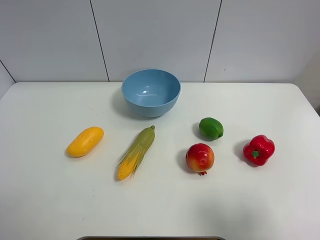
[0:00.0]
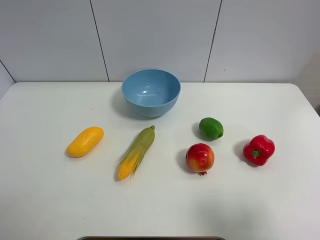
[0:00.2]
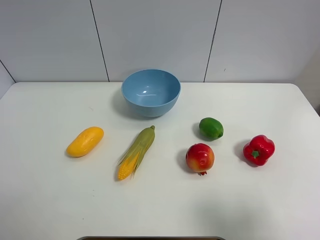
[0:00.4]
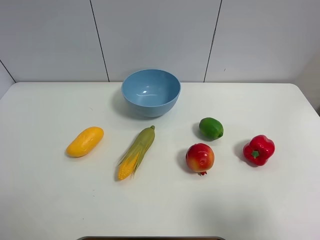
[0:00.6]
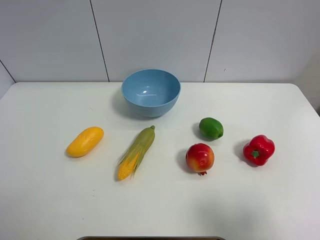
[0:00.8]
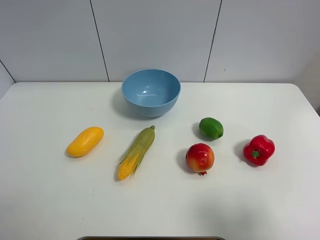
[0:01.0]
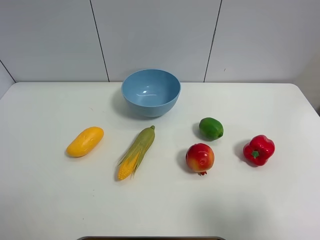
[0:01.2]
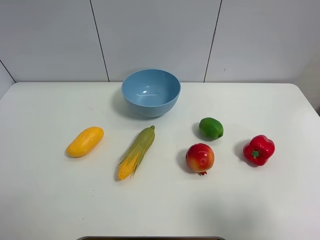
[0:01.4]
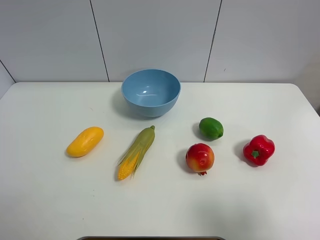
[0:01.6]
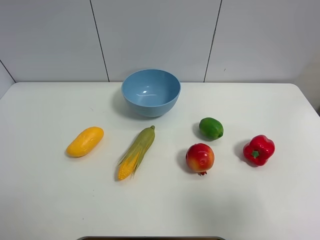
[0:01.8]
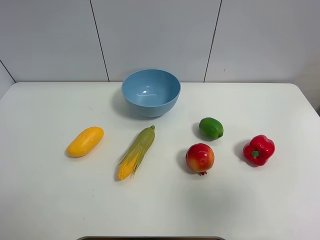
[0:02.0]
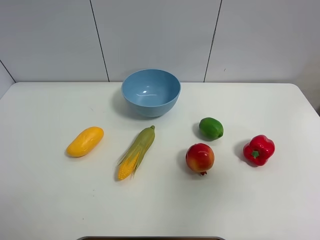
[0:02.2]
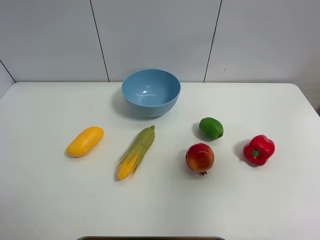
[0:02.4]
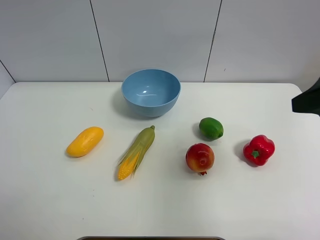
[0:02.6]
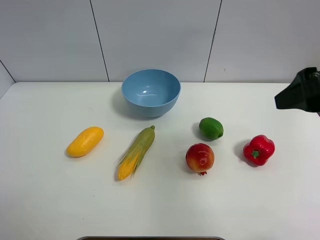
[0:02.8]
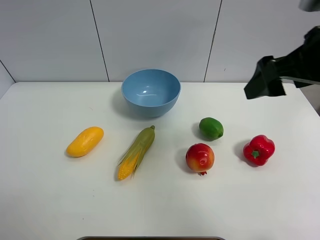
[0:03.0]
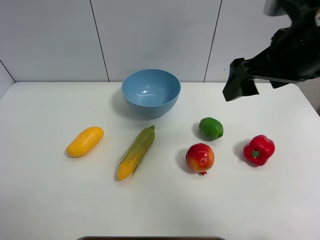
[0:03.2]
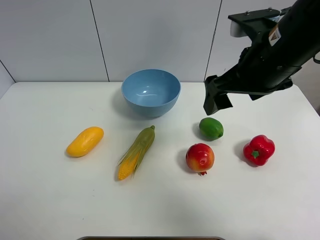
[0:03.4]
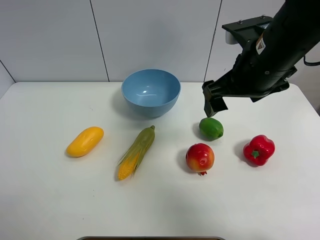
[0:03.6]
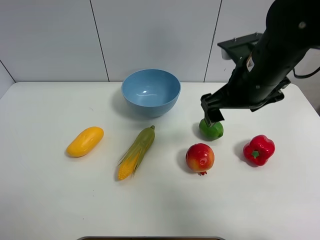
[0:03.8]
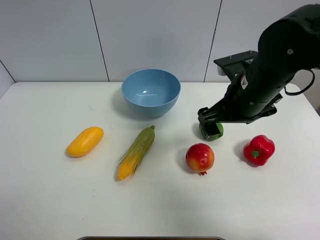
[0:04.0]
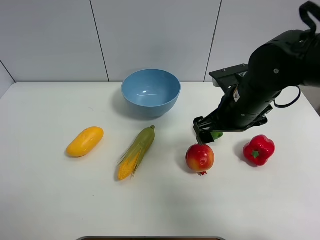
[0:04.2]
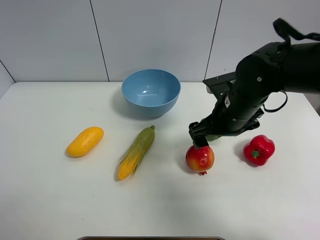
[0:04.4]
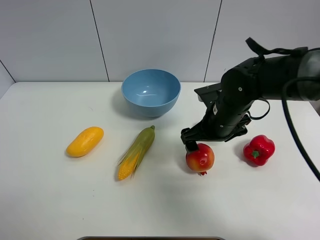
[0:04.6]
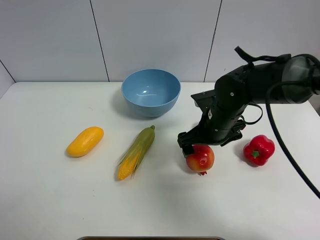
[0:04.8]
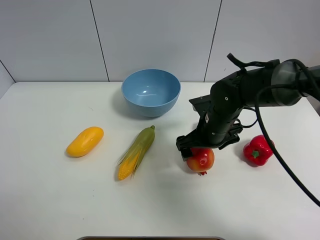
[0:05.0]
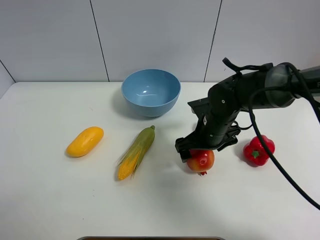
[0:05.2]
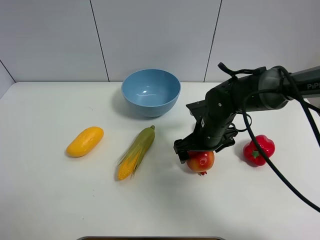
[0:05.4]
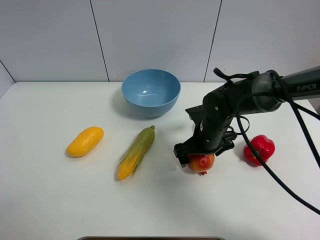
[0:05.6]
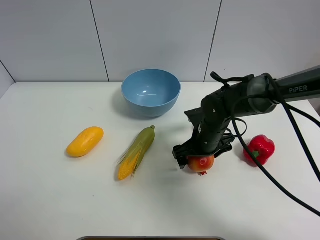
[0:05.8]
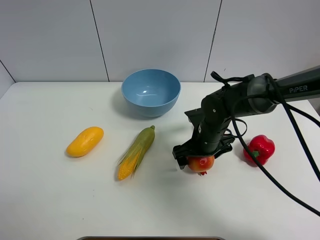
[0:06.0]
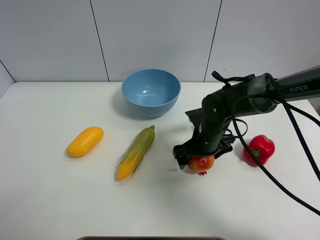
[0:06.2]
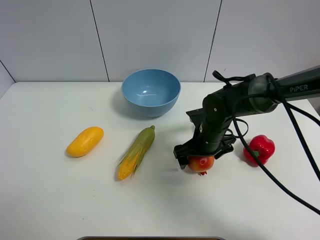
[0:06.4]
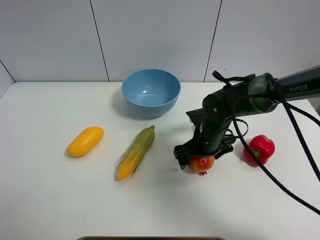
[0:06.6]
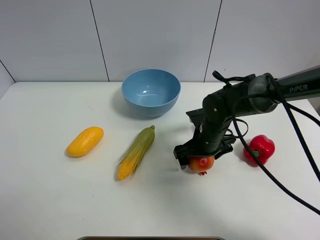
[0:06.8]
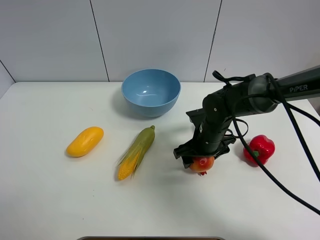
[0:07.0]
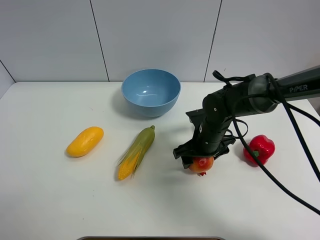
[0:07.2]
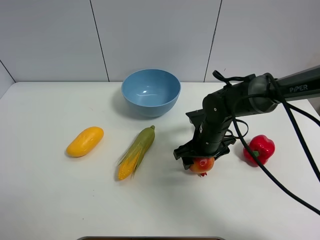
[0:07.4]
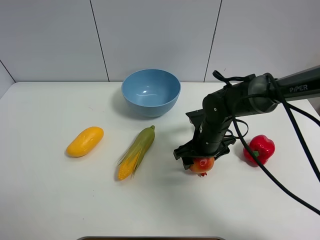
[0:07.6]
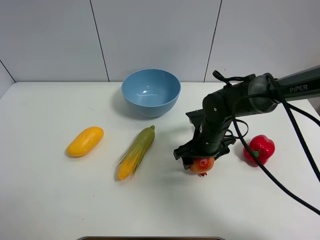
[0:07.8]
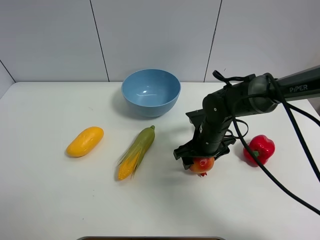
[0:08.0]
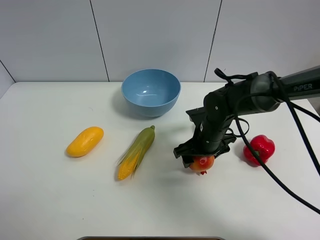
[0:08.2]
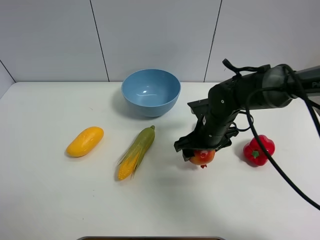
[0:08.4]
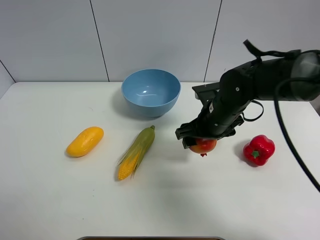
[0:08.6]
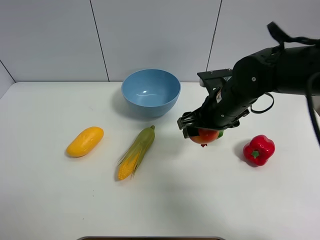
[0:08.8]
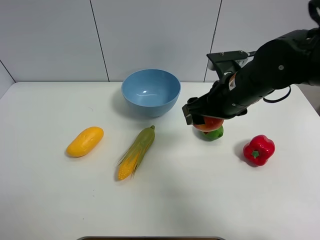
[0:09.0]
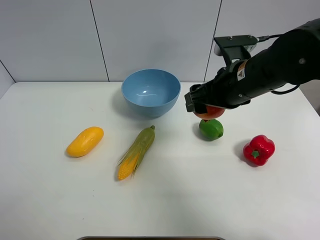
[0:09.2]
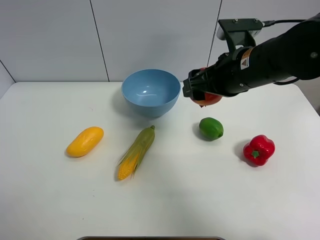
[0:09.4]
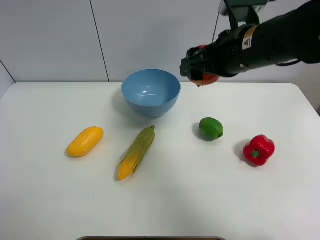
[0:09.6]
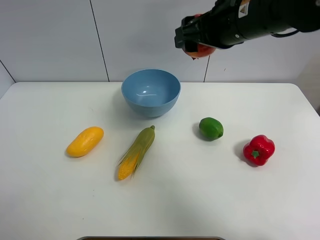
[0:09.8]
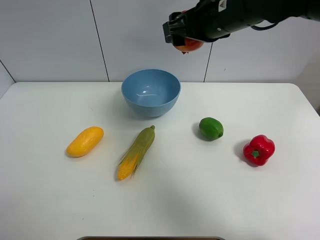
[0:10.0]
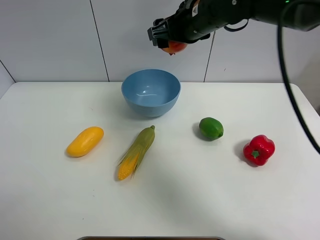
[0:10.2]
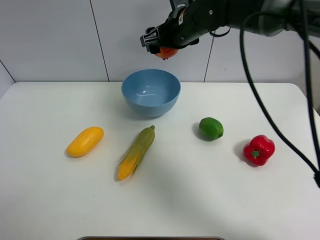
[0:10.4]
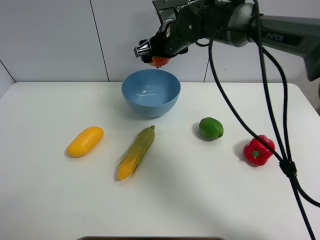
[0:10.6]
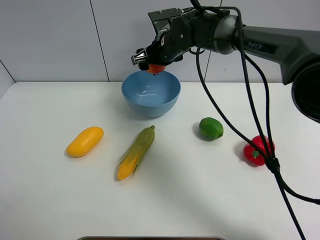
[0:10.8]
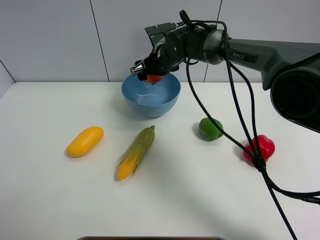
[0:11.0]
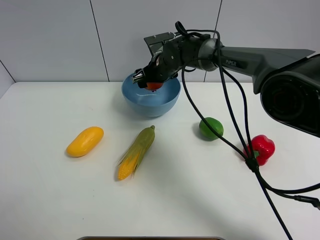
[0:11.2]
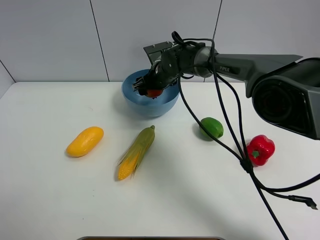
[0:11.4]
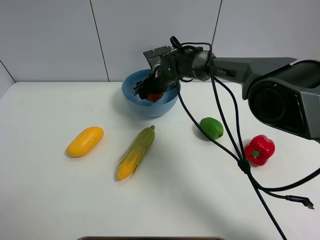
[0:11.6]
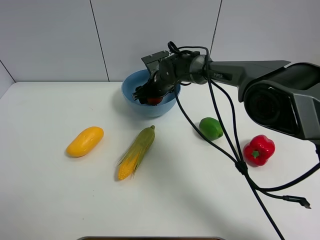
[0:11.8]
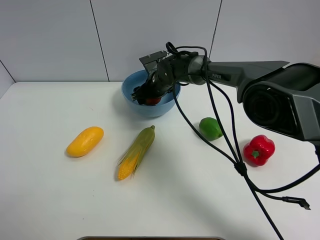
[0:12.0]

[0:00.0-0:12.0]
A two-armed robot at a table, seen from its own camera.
Task of the whole recording: Put the three fruits on the table into a bowl.
Step, 0:00.0 to 0:07.0: Grasp the pomegranate with right gripper.
0:00.0 to 0:01.6: Both grippers stay about where they are.
0:01.6 to 0:03.0: The right gripper is displaced forward and to the left by some 25 cm.
0:03.0 to 0:04.4: The right gripper shifts approximately 15 cm downward and to the left.
0:04.4 to 0:06.0: The right gripper travels downward by about 10 cm.
0:06.0 to 0:07.6: The right gripper closes its fingers.
0:07.6 to 0:09.0: The right gripper shifts about 15 cm upward.
0:09.0 to 0:10.4: The right gripper goes about 15 cm forward and to the left.
0:10.4 to 0:12.0: The right gripper travels downward by about 15 cm.

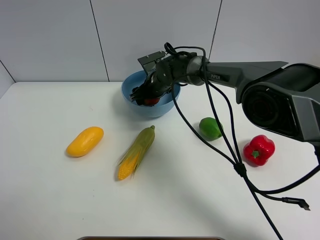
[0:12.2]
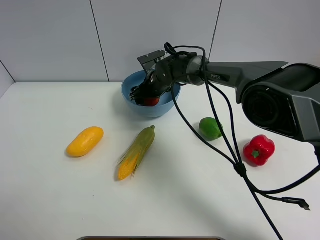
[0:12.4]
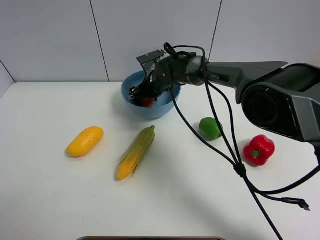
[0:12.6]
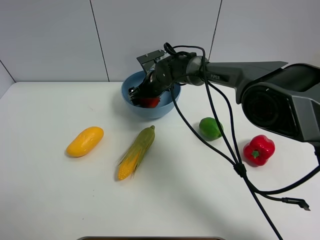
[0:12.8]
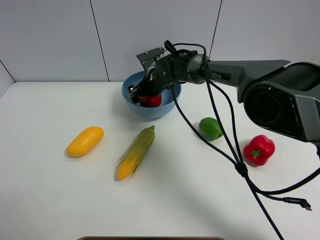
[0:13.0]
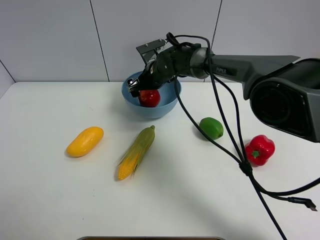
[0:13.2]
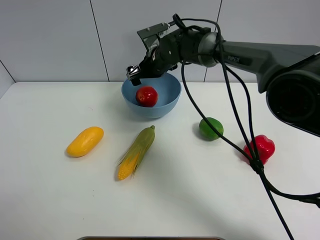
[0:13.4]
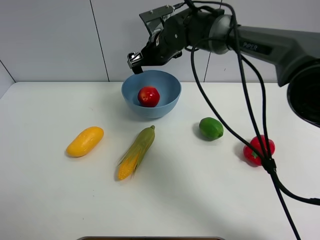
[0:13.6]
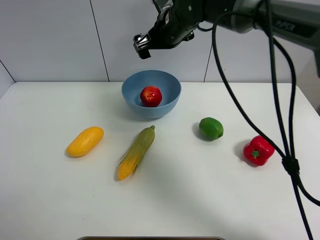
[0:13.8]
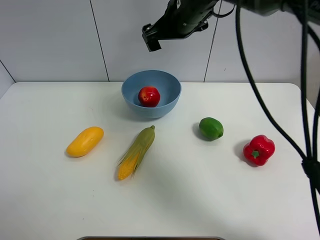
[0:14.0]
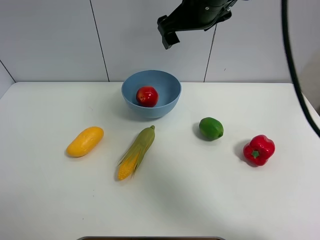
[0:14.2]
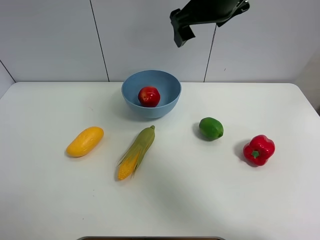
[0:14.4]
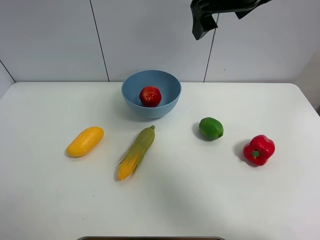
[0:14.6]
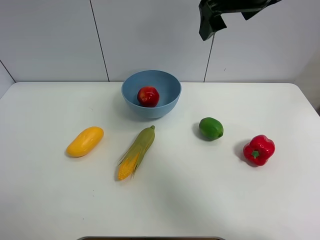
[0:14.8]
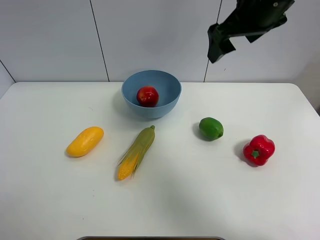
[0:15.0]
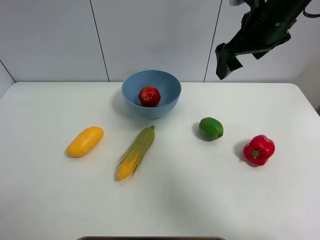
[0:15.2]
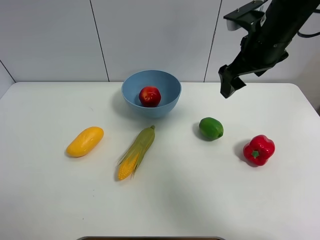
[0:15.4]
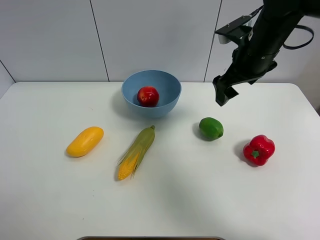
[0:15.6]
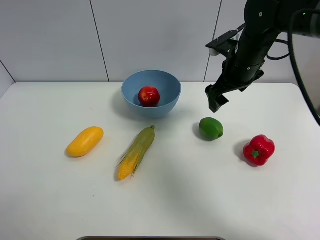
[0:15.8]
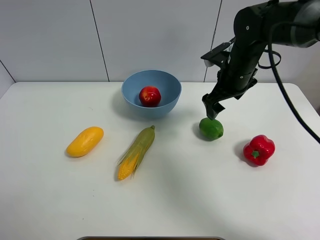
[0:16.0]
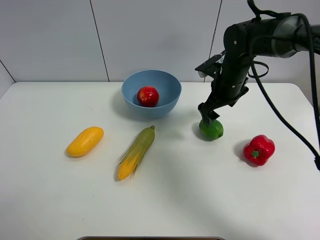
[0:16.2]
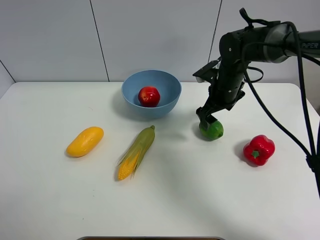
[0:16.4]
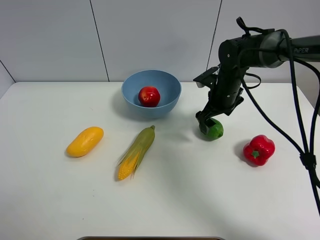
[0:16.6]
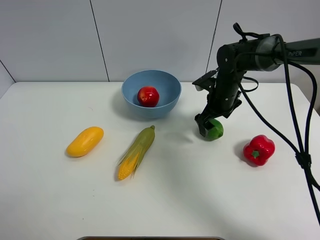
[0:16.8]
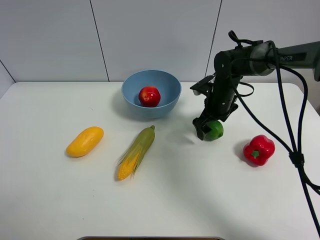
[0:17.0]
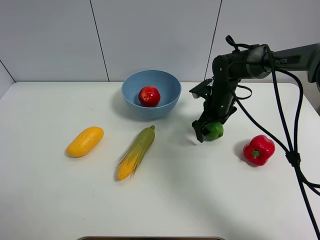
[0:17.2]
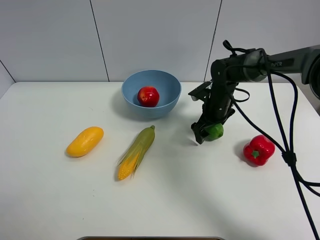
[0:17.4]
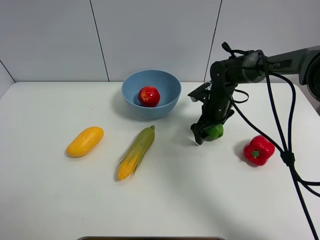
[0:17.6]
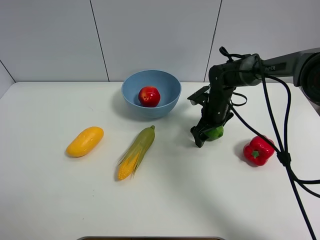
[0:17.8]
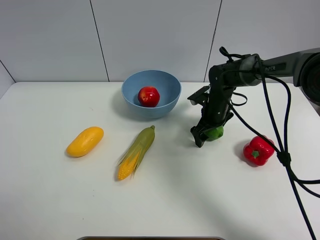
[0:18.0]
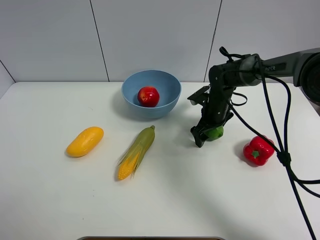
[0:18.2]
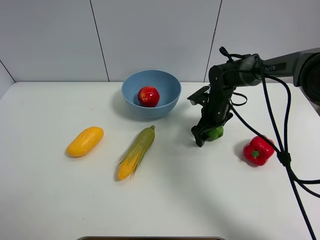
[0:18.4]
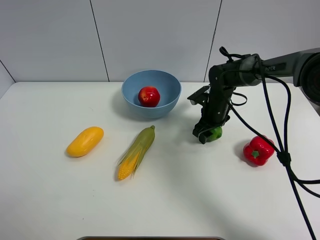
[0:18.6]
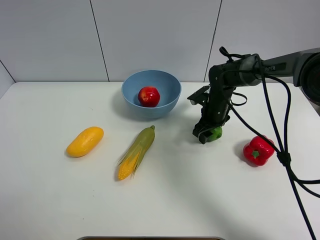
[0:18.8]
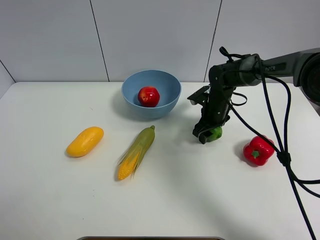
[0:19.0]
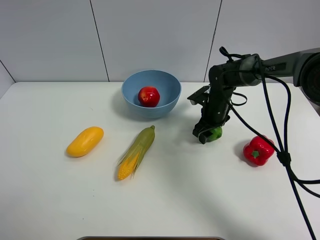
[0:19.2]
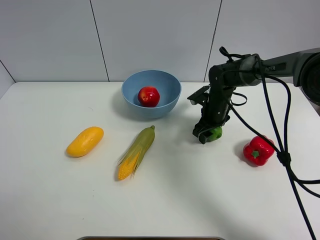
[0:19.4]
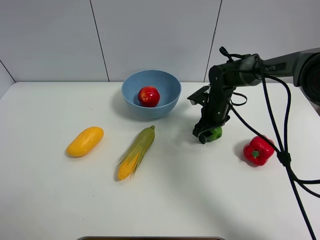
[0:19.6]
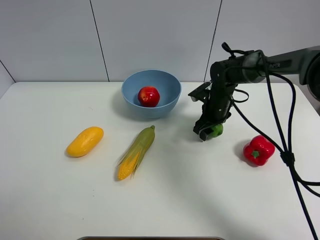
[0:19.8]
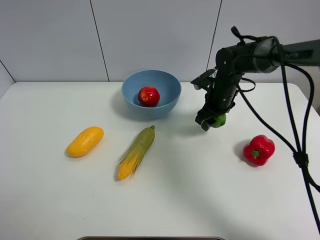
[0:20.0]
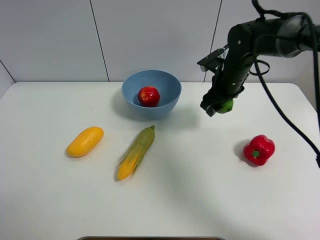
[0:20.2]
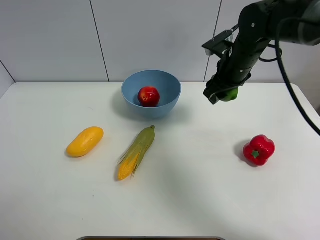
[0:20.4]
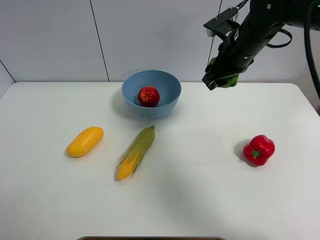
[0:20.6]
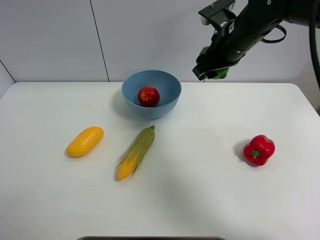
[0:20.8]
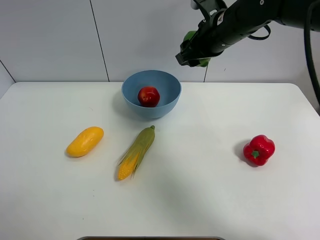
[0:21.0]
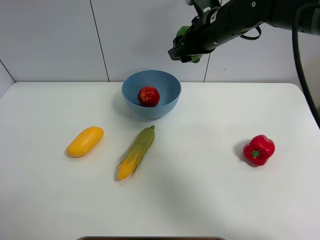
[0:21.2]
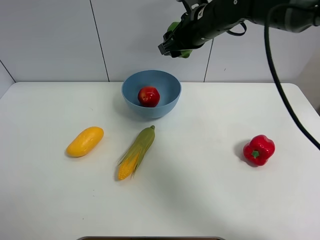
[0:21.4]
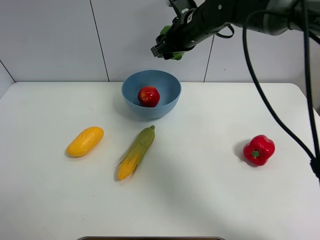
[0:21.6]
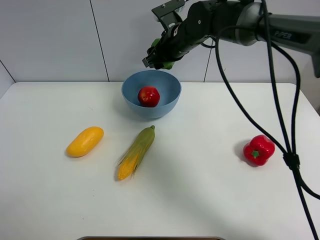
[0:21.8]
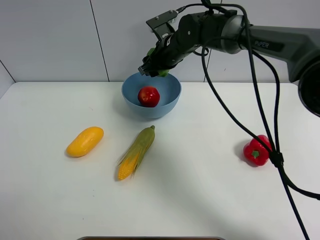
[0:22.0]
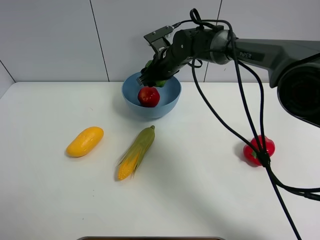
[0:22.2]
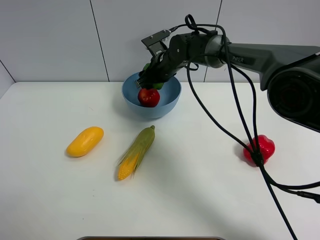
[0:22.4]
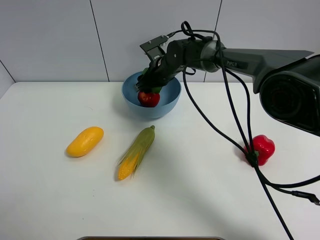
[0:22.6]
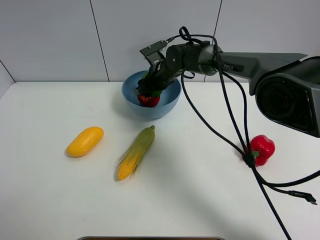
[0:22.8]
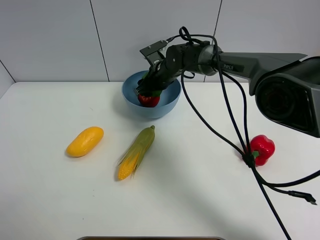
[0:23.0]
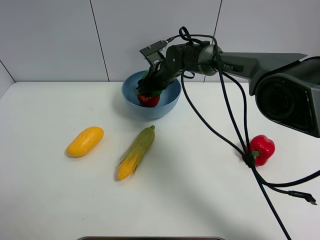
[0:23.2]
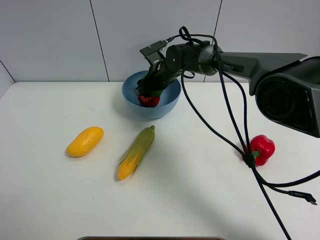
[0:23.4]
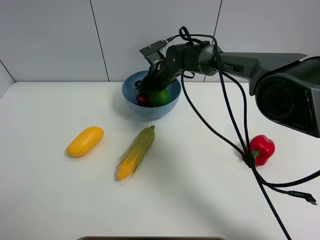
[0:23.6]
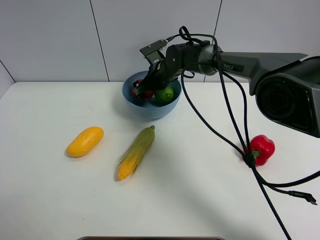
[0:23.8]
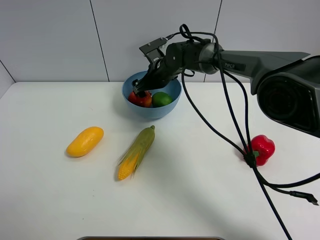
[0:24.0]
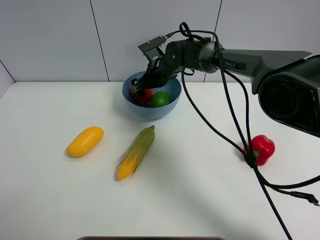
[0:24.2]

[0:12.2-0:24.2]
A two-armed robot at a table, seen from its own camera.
Task of the whole recording: Put the three fruits on the table into a bowl.
Step, 0:13.6 to 0:18.6: Grasp the green lemon with right gripper.
Step, 0:18.8 to 0:24.0: Place the green lemon in the blue bowl with right gripper.
0:12.2 to 0:13.8: The right gripper is displaced upward by some 15 cm, and opens.
0:13.8 to 0:15.2: The right gripper travels to the right, backward and upward by some 15 cm.
0:15.2 to 0:16.6: The right gripper goes about 20 cm downward.
0:16.6 to 0:18.2: The right gripper goes roughly 5 cm downward.
0:18.2 to 0:19.8: The right gripper closes up.
0:19.8 to 0:21.2: The right gripper moves upward, approximately 20 cm.
0:21.2 to 0:22.6: The right gripper shifts about 20 cm downward, to the left and forward.
0:22.6 to 0:24.2: The right gripper opens.
